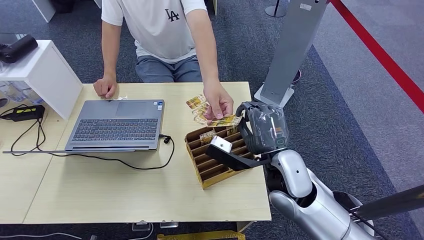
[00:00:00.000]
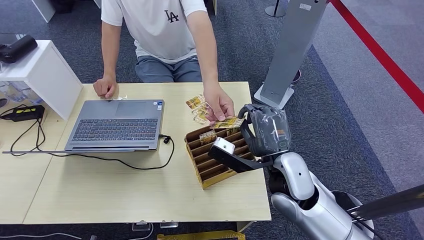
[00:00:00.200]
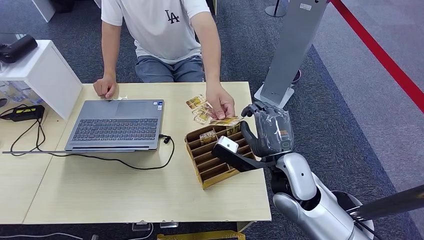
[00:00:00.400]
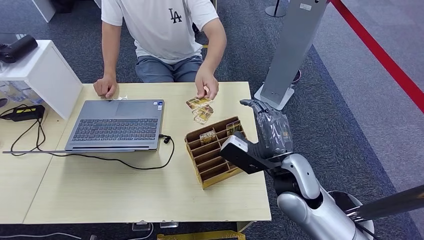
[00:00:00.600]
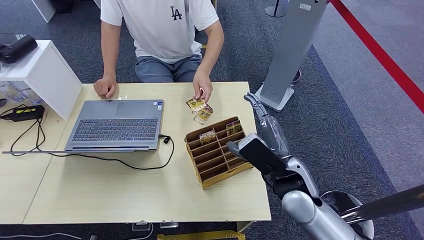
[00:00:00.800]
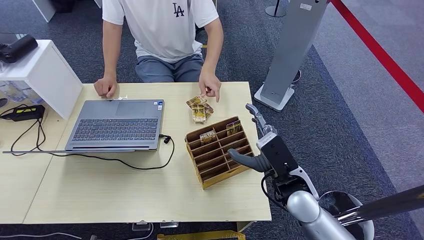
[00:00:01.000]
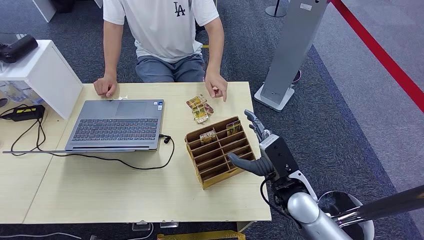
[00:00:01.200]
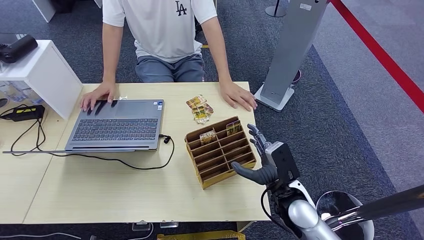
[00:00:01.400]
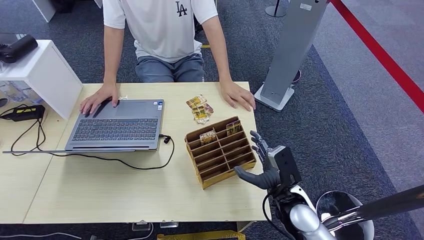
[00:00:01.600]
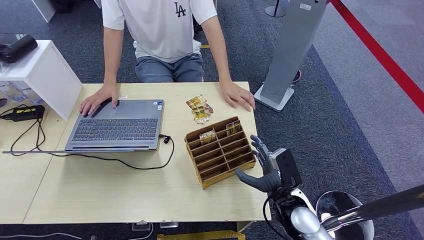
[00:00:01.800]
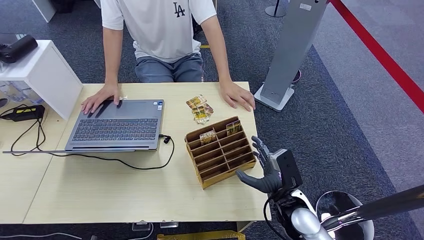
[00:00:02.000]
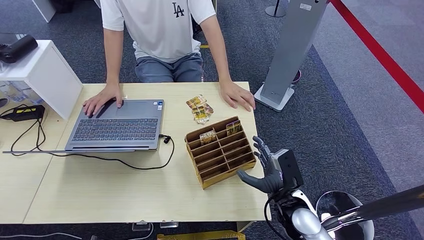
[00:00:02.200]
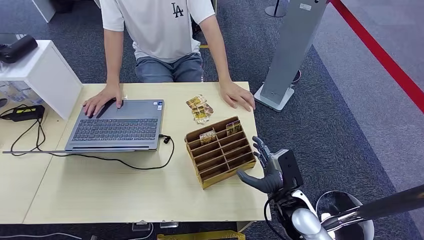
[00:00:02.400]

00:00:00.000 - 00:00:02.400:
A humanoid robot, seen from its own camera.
Step, 00:00:00.000 - 00:00:02.200: Hand the room card to the target.
00:00:00.000 - 00:00:01.200: The right hand heads downward, covering about 10 cm.
00:00:01.200 - 00:00:02.400: The right hand moves downward, approximately 5 cm.
